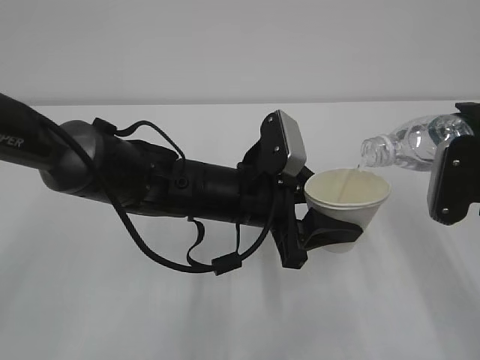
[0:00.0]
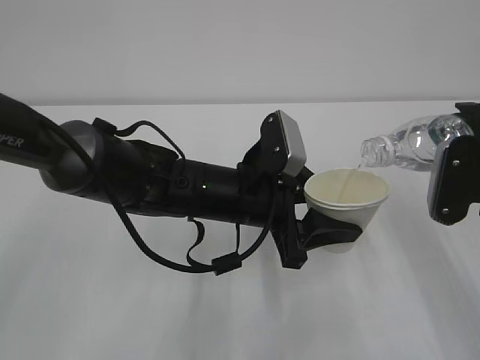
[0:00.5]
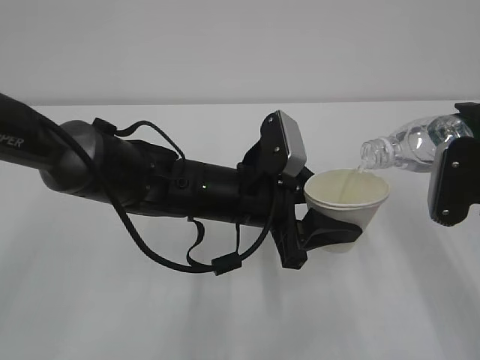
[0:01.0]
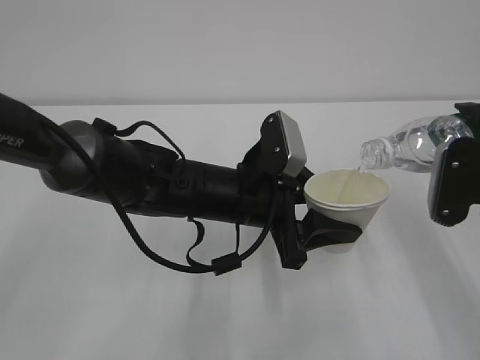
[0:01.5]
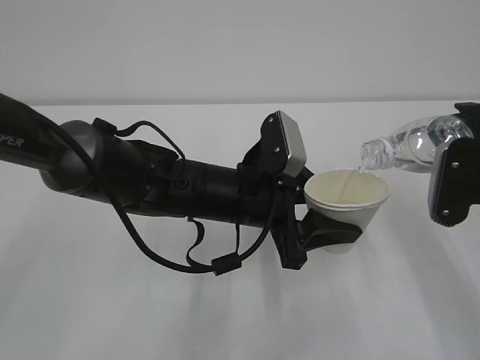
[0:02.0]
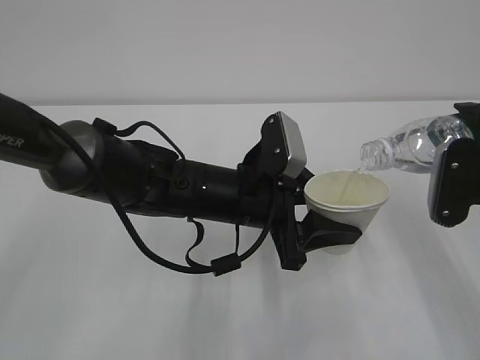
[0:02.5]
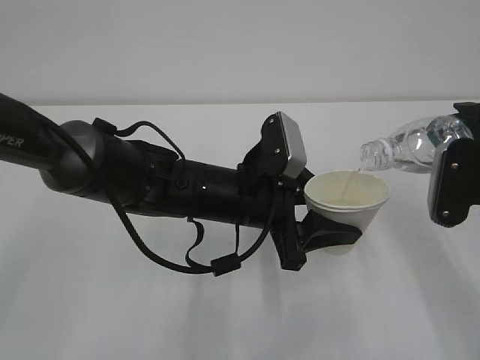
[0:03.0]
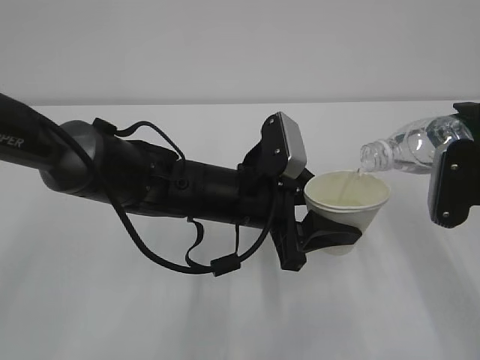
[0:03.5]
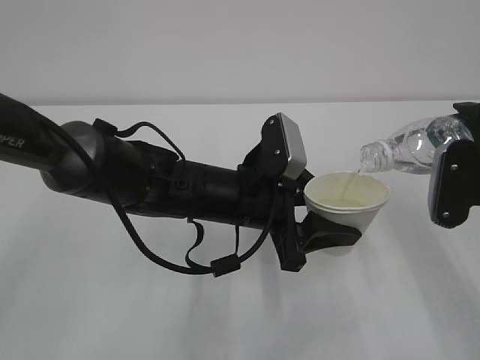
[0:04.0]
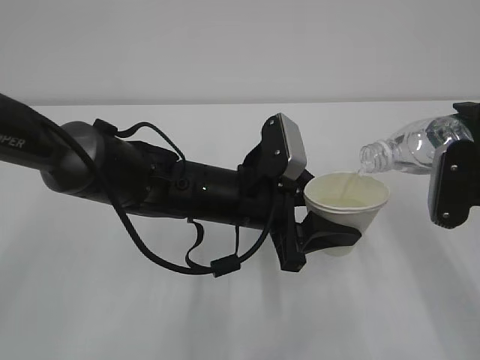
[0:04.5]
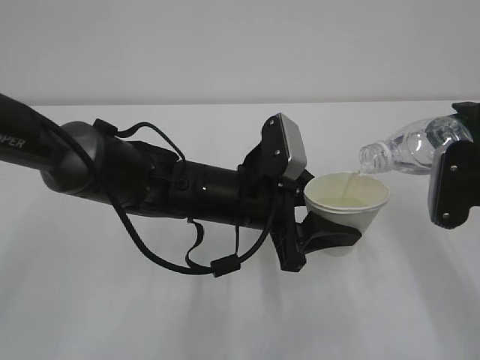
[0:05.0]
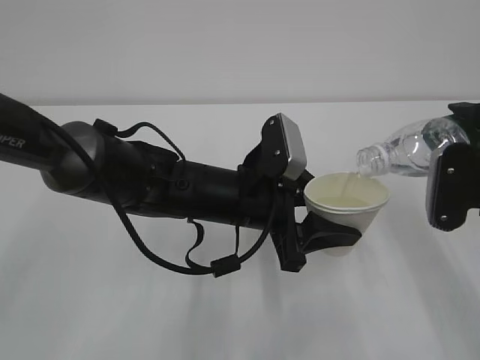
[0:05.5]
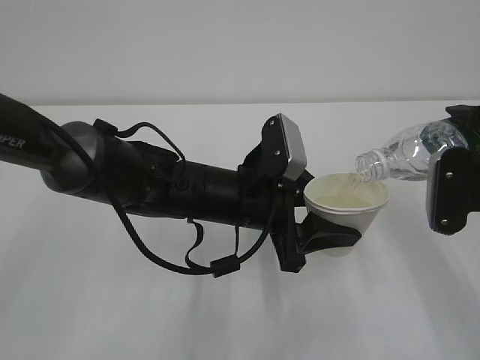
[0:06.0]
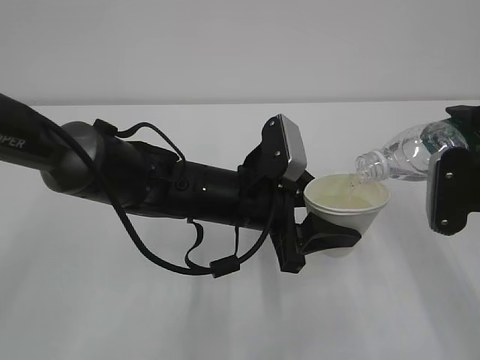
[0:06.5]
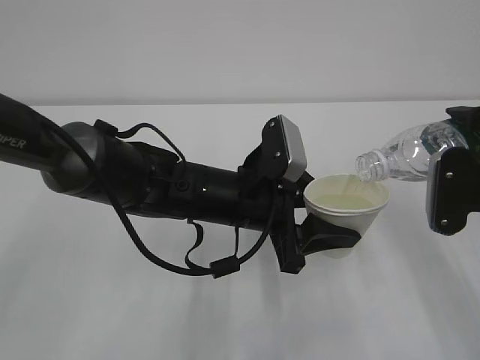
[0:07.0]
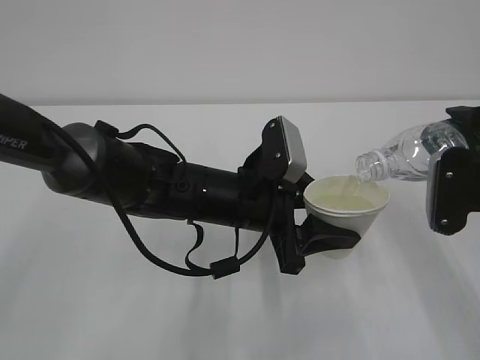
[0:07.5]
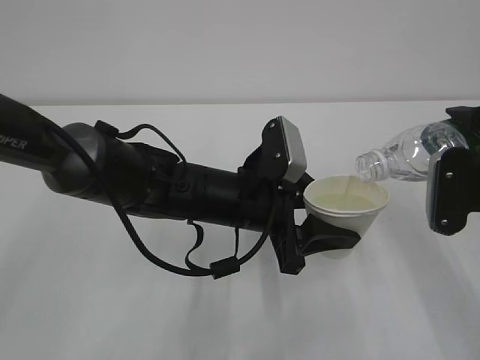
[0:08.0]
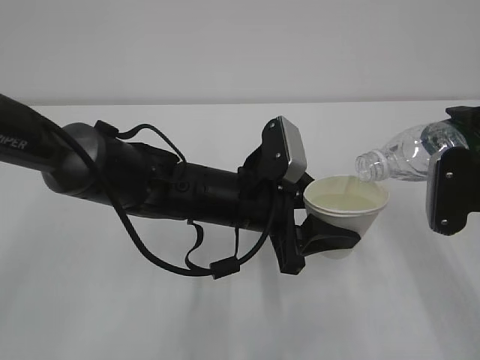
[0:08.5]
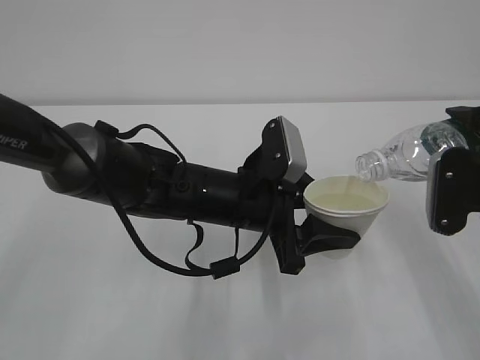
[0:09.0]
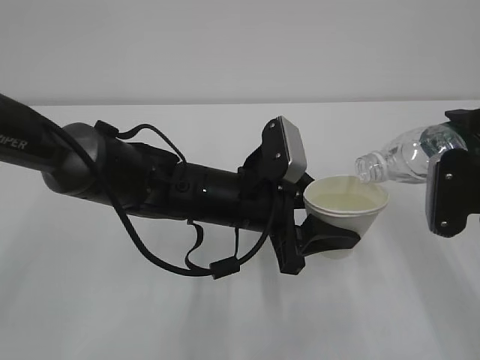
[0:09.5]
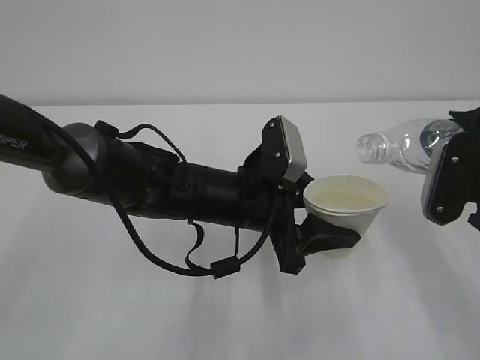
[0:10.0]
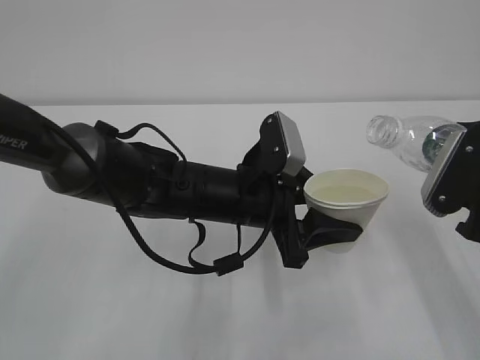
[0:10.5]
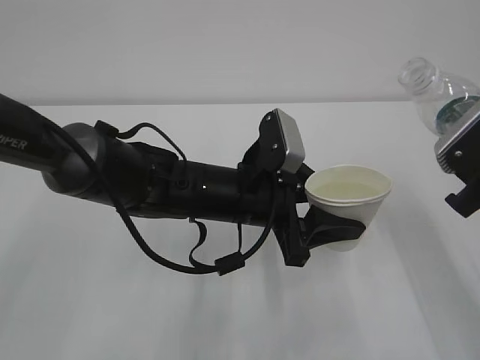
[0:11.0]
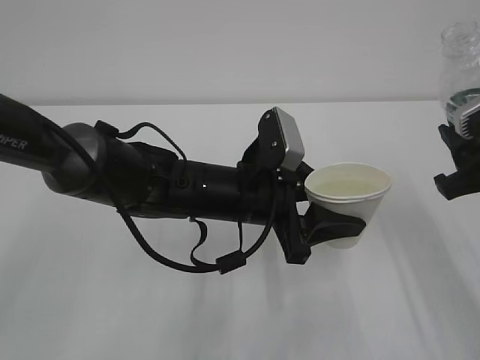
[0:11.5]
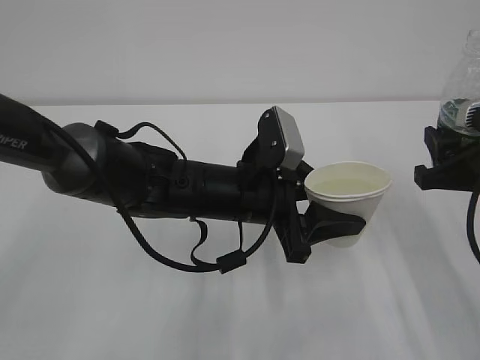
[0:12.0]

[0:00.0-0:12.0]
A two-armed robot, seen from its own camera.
0:00.0 to 0:04.0: The two grippers keep their place.
0:04.0 to 0:08.0: Both grippers stay put.
0:08.0 to 0:10.0: The grippers make only small movements.

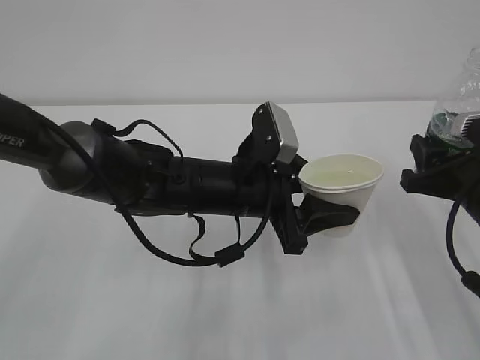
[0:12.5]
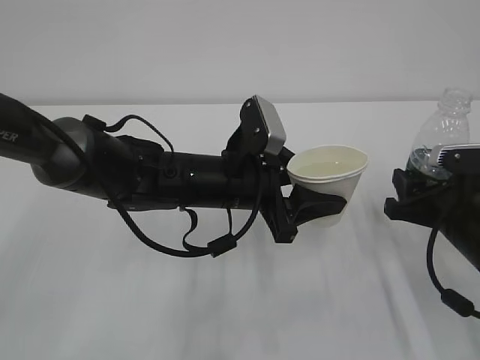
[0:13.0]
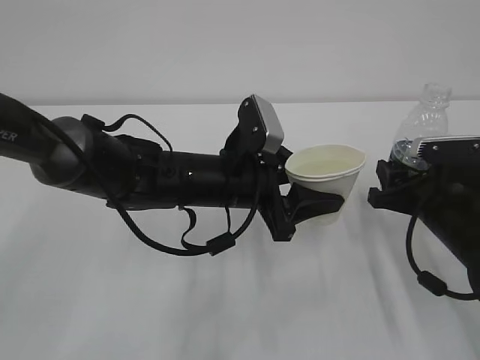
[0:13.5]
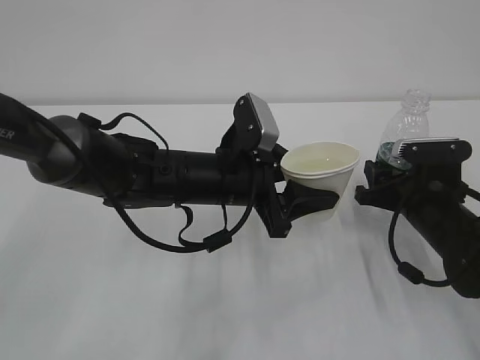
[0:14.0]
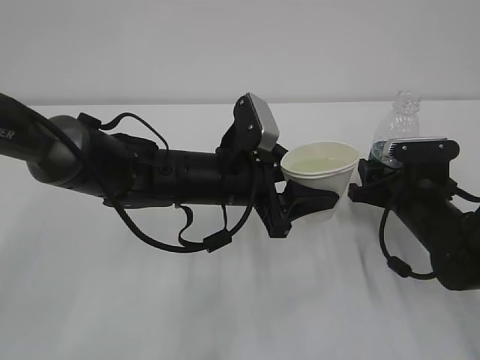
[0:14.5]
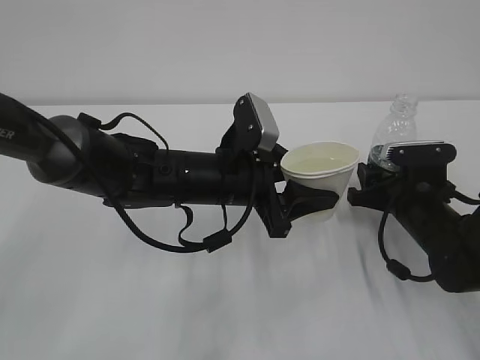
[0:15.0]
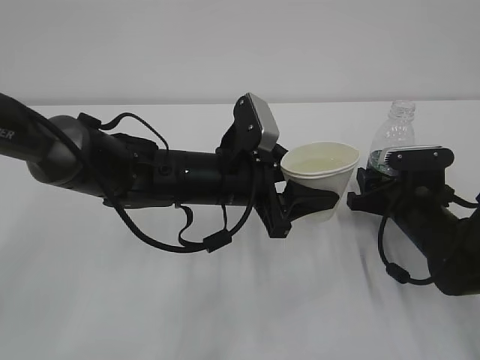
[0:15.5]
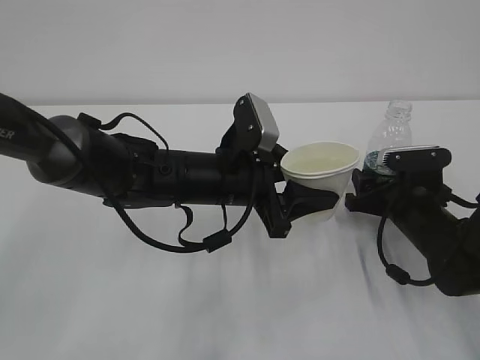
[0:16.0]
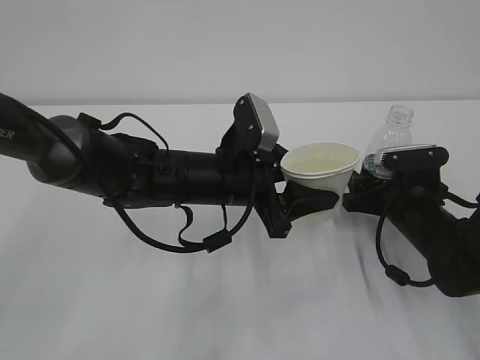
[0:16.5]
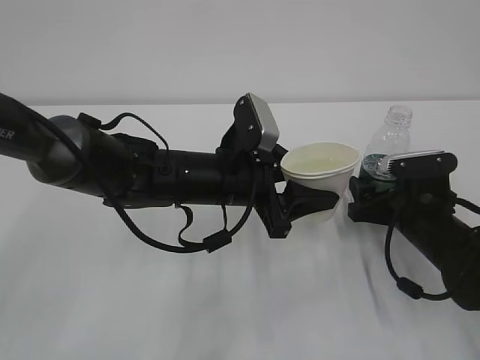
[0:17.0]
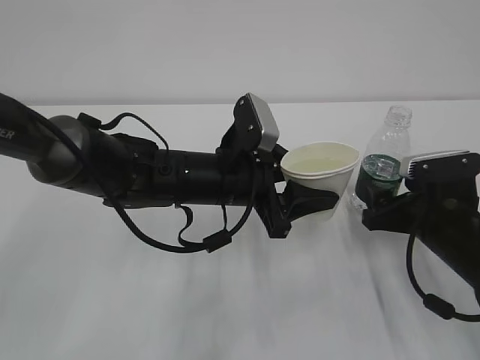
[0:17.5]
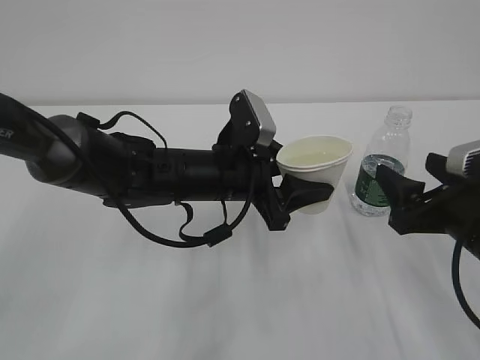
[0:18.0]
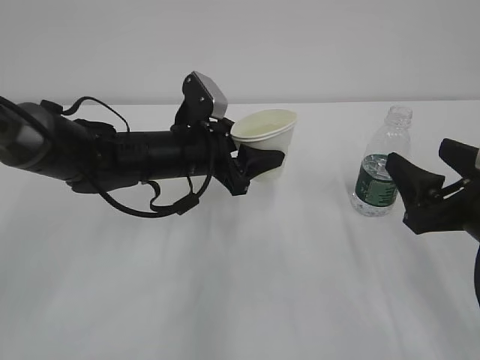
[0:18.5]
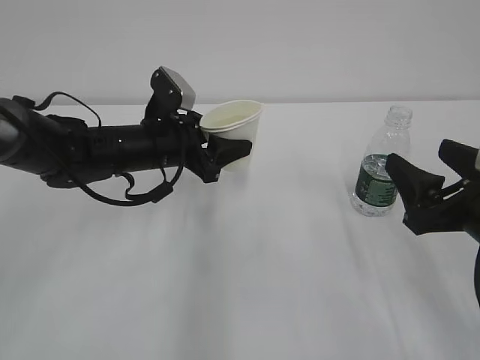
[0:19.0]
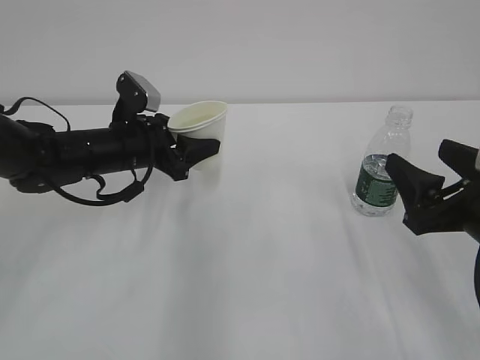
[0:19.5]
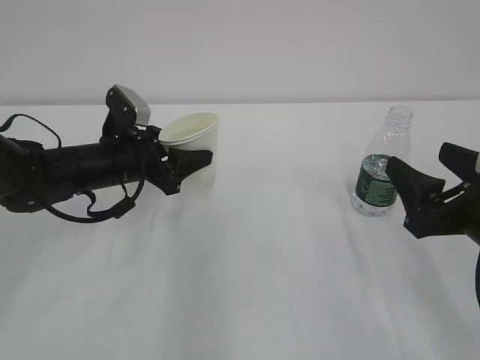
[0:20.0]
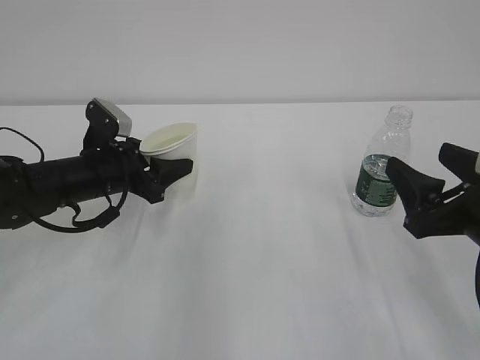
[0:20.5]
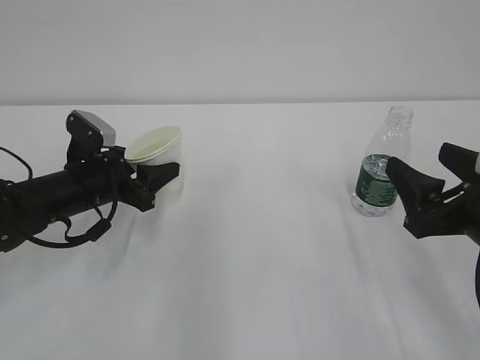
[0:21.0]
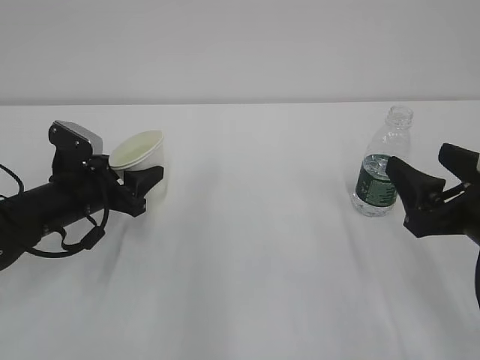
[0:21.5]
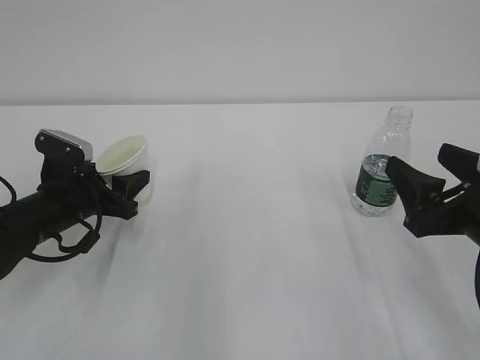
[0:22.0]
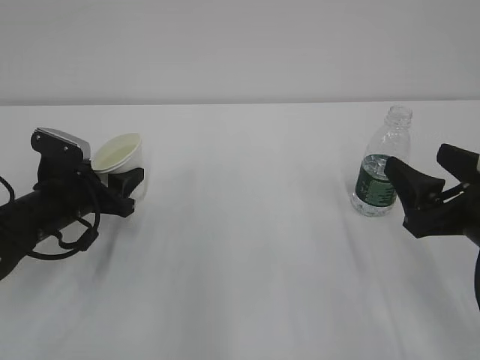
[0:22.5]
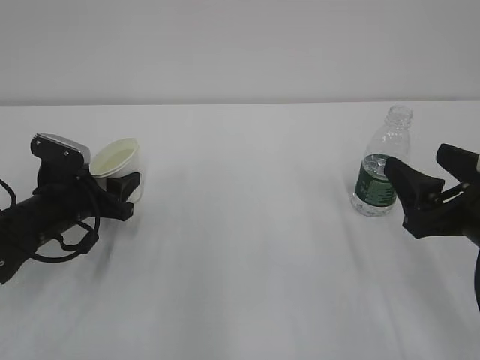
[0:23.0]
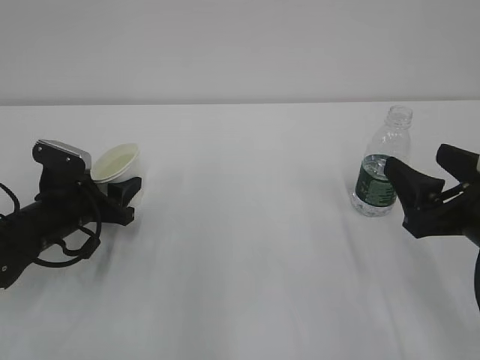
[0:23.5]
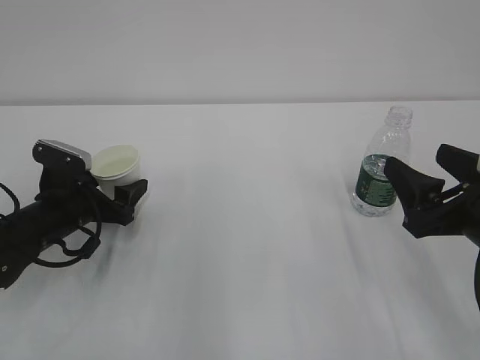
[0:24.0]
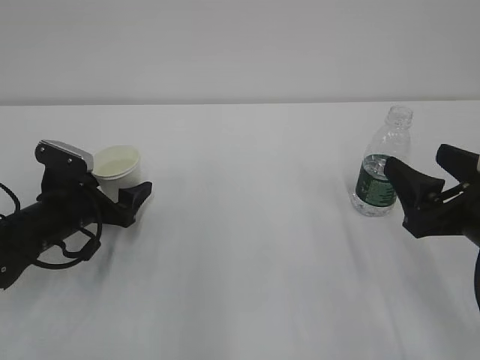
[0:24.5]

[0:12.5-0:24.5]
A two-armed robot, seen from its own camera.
0:12.5 to 0:14.5: The right gripper travels downward and forward by approximately 10 cm.
0:14.5 to 0:16.5: The right gripper opens up.
0:16.5 to 0:18.5: The left gripper is displaced to the left by some 5 cm. The right gripper heads backward and upward, covering roughly 15 cm.
0:18.5 to 0:20.5: The left gripper is displaced to the left by some 10 cm.
0:20.5 to 0:22.5: The left gripper ends up some 5 cm from where it was.
0:22.5 to 0:24.5: The left gripper opens.

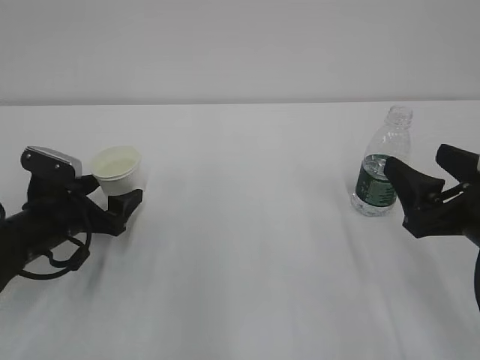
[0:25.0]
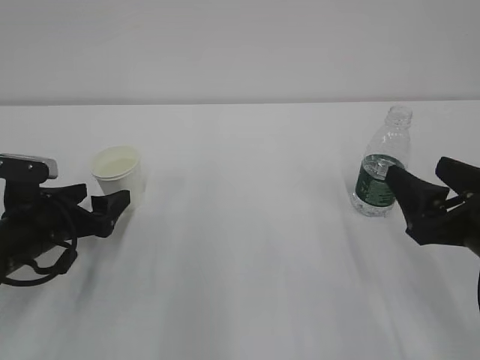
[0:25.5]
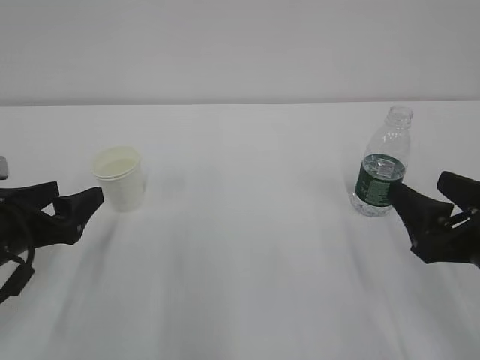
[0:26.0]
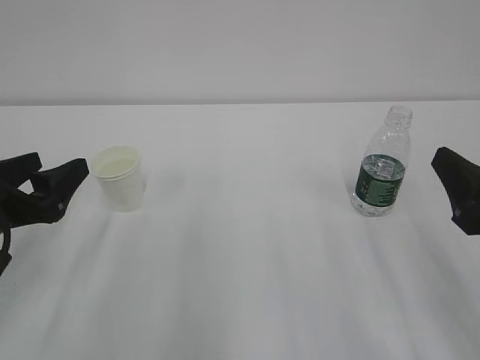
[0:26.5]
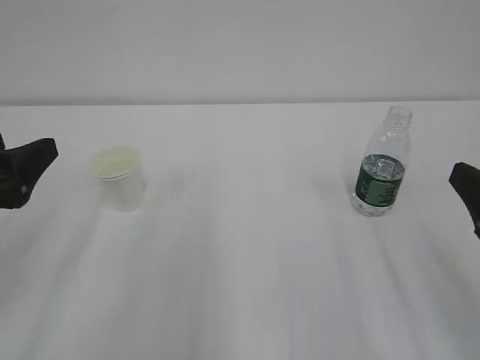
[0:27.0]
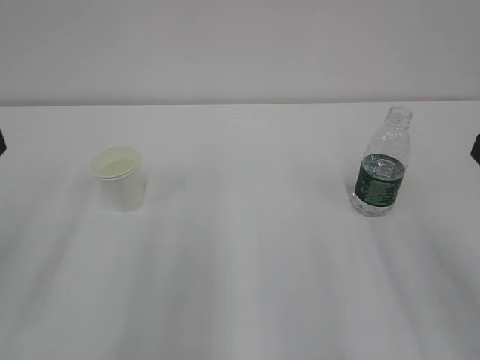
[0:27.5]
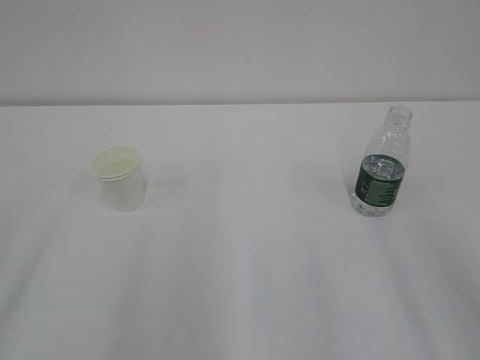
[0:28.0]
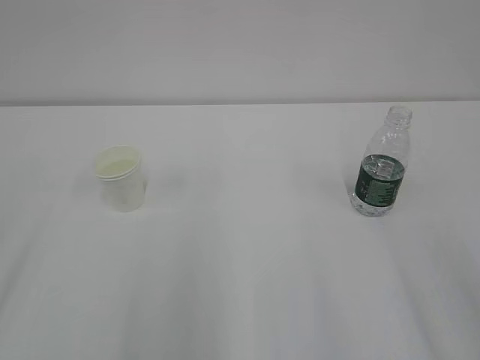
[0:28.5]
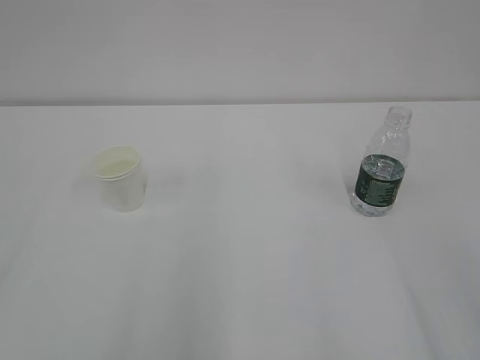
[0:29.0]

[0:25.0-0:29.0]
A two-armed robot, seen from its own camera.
0:25.0 to 0:27.0: The right gripper goes approximately 5 cm backward, while the left gripper goes approximately 20 cm upward and backward.
0:27.0 to 0:29.0: The two grippers go roughly 15 cm backward and upward.
